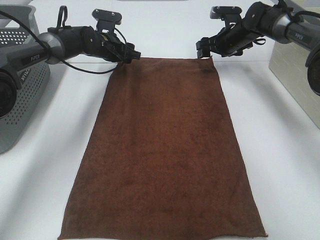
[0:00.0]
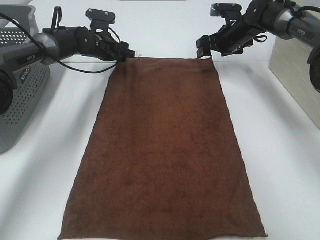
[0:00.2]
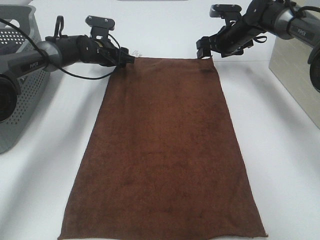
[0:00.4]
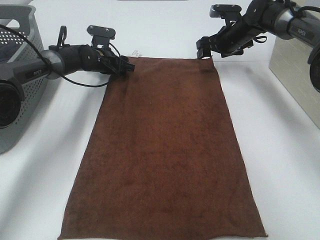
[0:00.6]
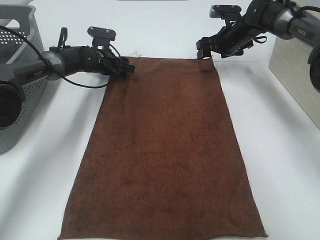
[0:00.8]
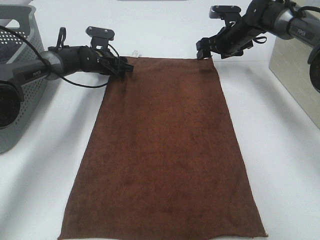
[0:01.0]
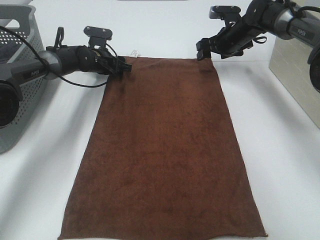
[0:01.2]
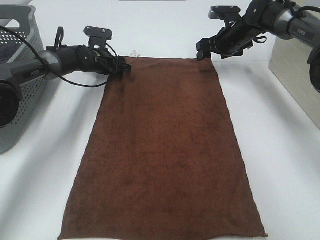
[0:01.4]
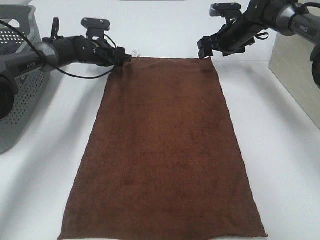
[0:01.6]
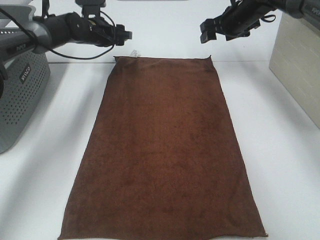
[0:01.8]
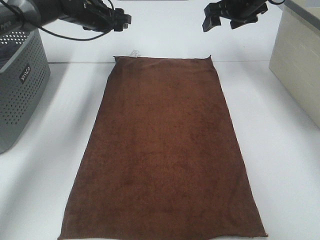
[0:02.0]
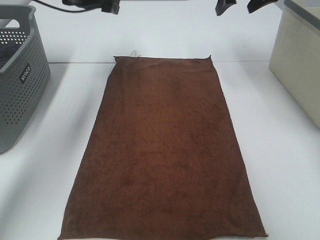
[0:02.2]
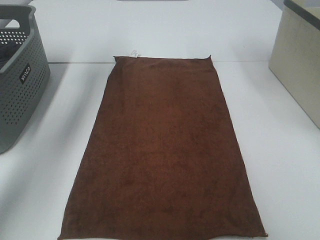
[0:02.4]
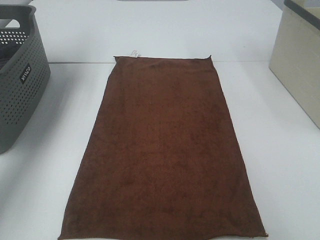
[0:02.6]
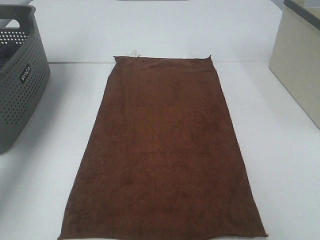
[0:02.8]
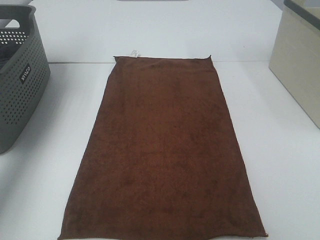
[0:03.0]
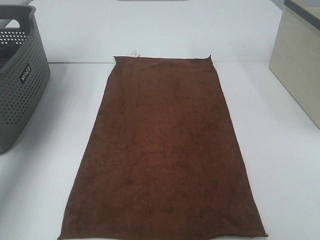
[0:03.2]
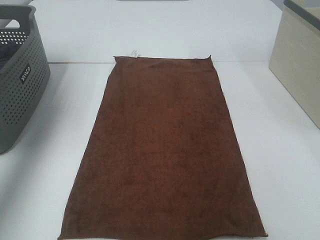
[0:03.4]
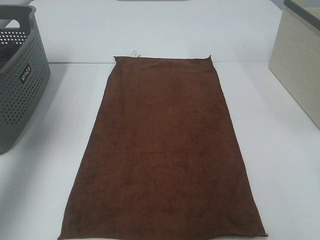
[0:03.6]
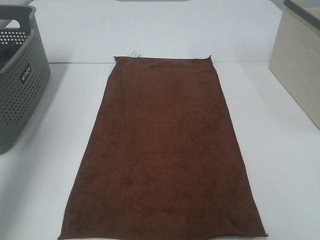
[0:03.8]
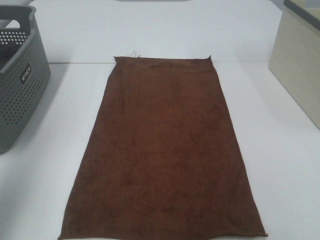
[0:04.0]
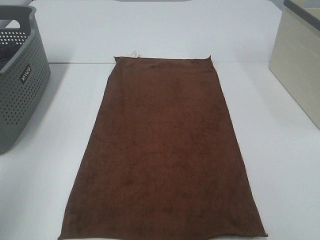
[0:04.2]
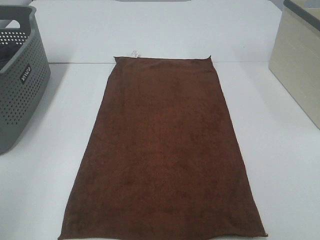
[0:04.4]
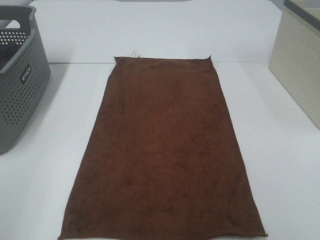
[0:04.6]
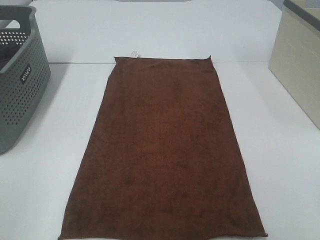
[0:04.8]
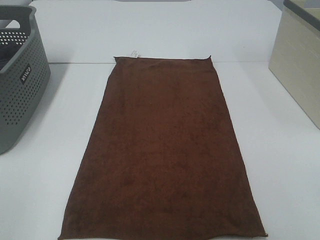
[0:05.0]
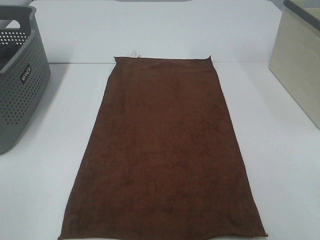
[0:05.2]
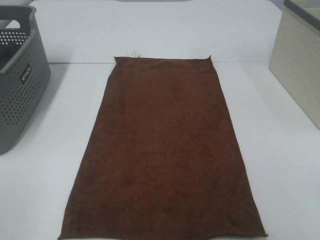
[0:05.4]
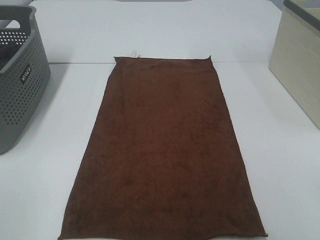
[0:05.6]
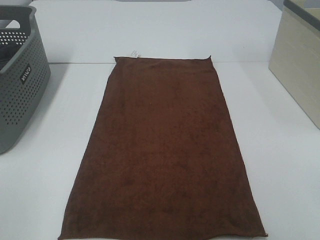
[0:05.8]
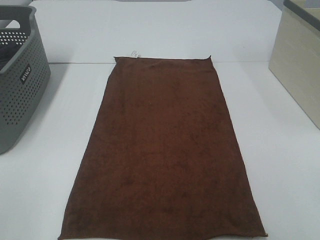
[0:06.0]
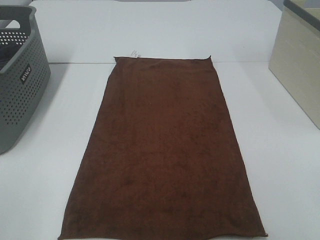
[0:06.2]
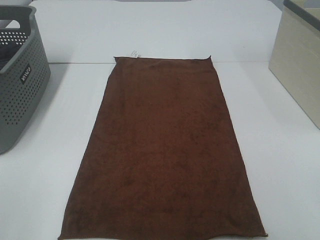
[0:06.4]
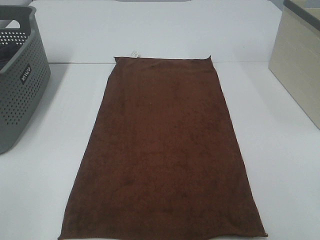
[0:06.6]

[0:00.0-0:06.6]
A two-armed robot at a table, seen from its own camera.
Task of the whole recording: Remove the towel and place it.
0:00.0 to 0:01.6: The grippers stay close to where they were, moving slightly.
0:01.6 to 0:03.2: The right gripper shifts approximately 35 cm upward and backward. The left gripper is displaced upward, backward and to the left by about 40 cm.
0:03.2 to 0:05.0: The left gripper travels backward by approximately 40 cm.
0:05.0 to 0:06.6: Both grippers stay about where they are.

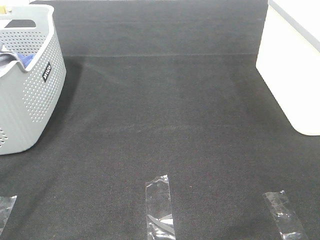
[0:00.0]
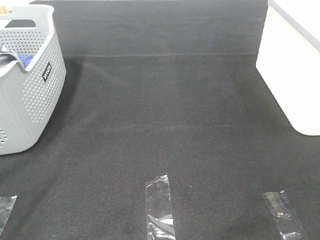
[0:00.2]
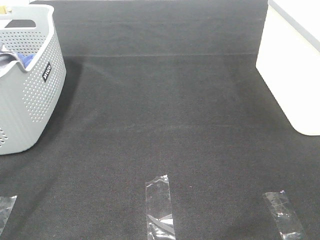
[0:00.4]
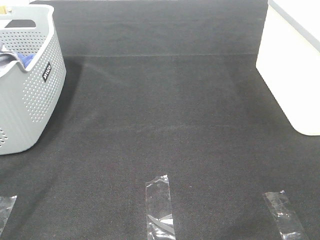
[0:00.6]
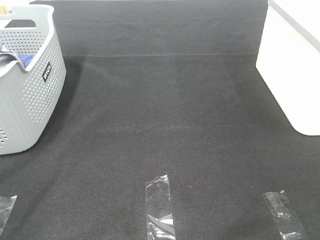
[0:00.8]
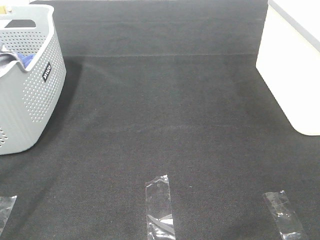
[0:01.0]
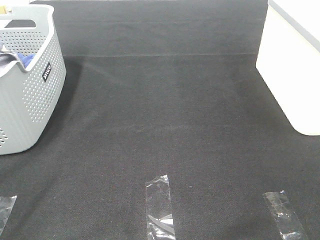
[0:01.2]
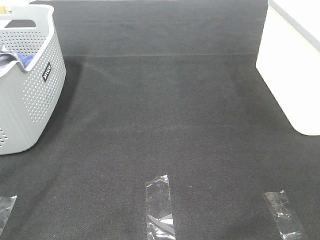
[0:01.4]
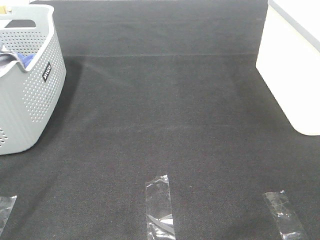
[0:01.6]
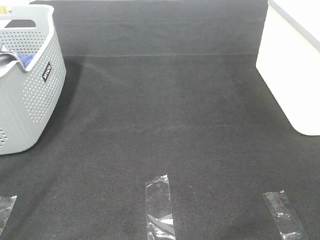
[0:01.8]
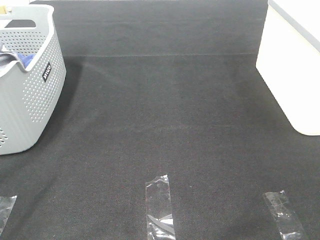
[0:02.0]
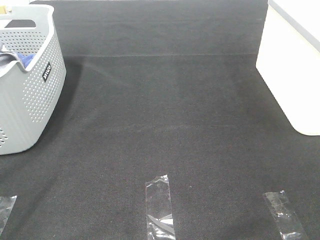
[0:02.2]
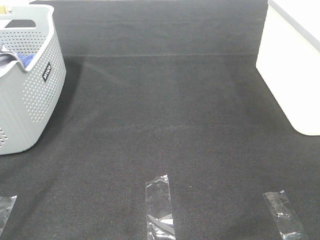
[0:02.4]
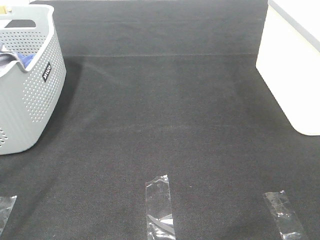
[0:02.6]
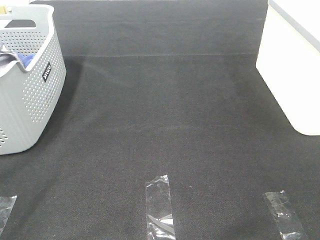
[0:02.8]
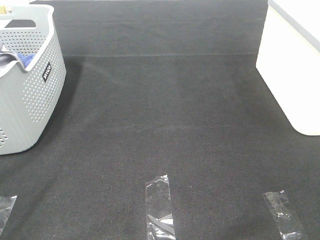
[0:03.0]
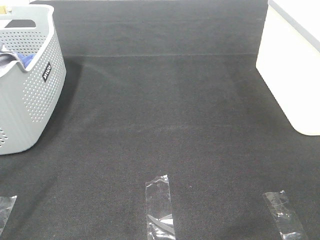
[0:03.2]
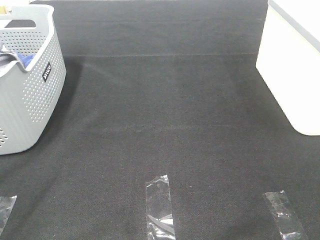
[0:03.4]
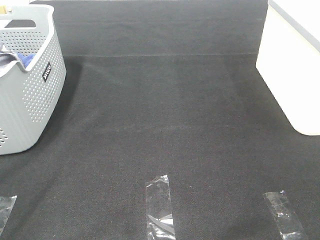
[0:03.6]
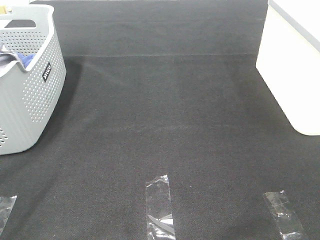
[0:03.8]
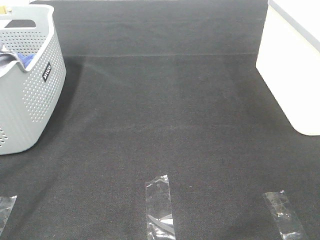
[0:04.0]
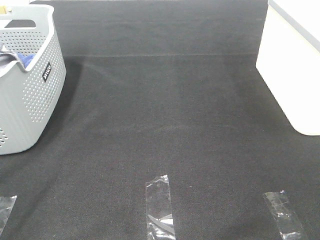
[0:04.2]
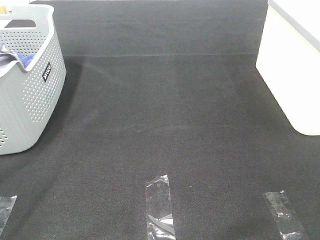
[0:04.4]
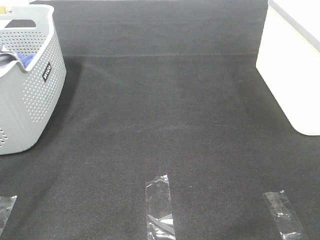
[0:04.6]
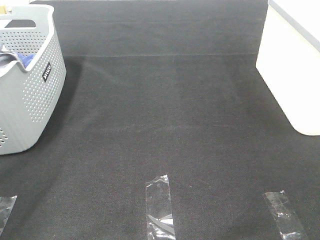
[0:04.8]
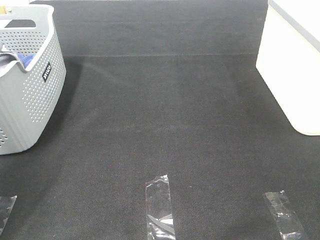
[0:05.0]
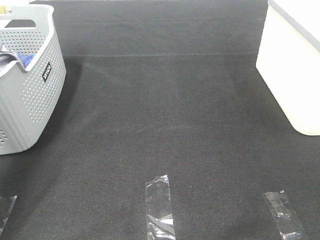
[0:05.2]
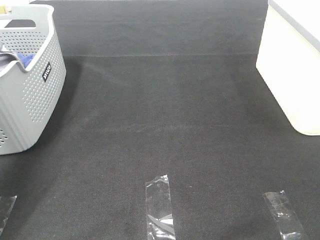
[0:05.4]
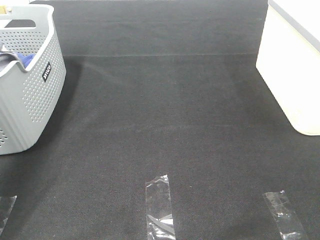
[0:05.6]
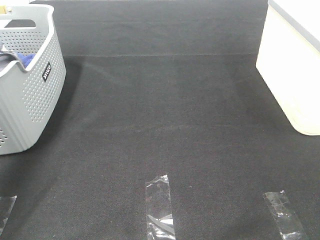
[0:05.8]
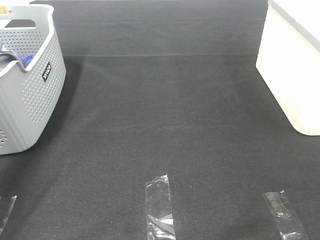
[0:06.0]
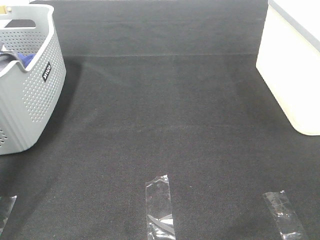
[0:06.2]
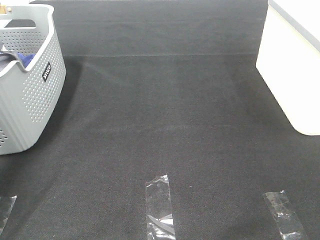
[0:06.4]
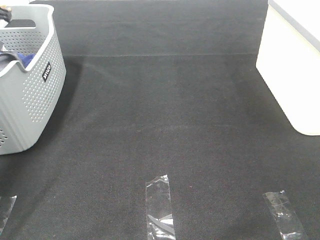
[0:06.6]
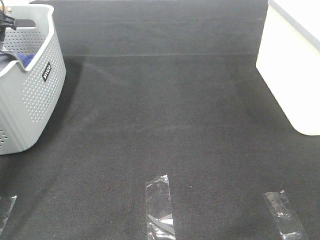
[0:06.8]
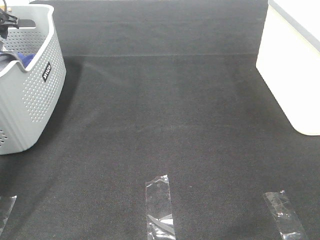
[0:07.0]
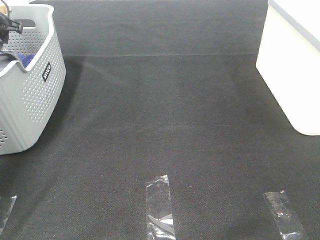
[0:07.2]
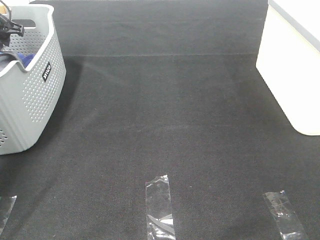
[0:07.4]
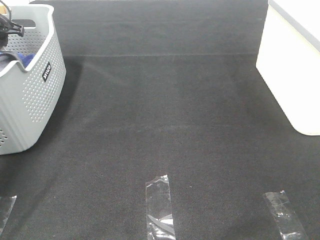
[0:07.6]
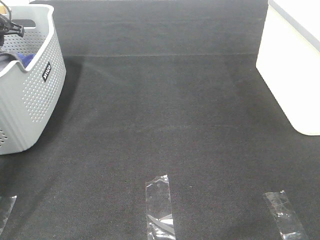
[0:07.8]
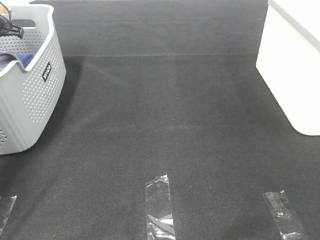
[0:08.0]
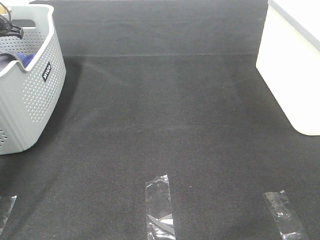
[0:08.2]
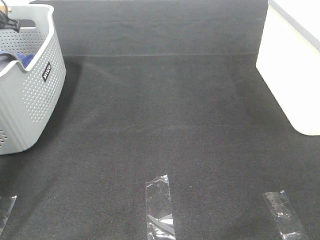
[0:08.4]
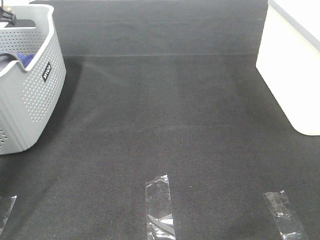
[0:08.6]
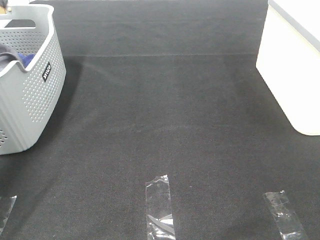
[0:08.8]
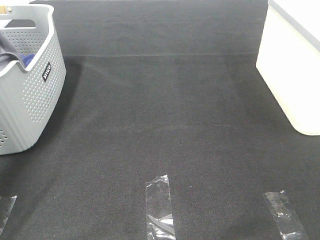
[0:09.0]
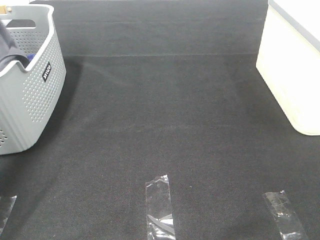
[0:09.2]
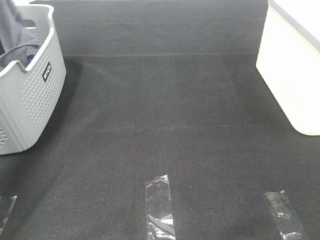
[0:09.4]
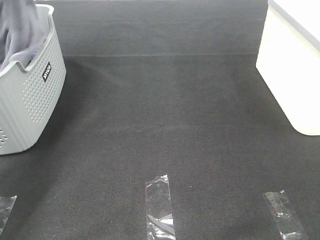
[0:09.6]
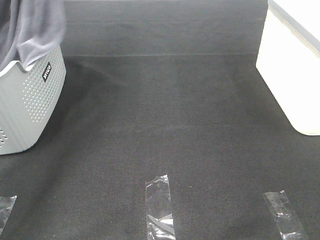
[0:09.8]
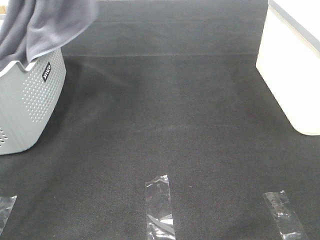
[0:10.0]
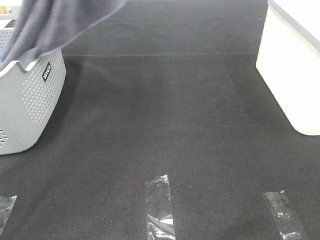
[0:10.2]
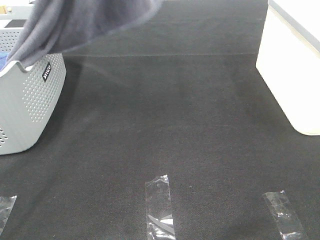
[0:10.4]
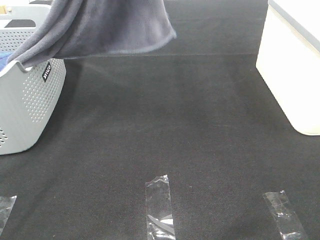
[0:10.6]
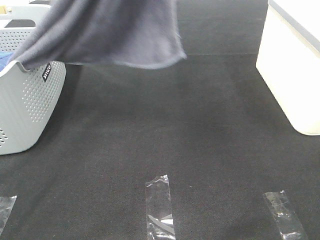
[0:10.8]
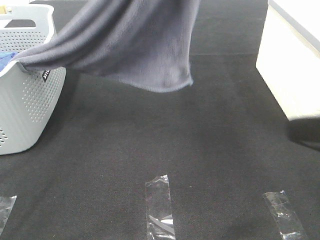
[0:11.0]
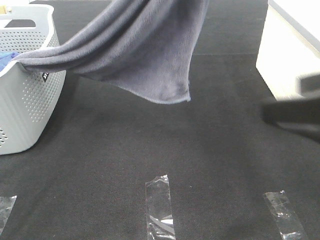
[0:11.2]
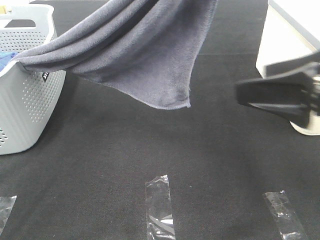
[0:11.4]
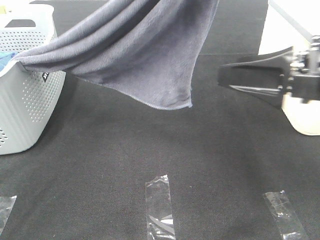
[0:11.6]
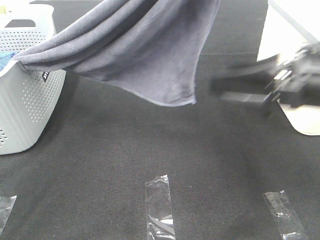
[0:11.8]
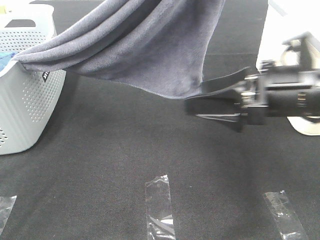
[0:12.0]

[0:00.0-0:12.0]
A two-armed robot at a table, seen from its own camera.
Task of the whole recording: Remove the towel and place it.
0:00.0 to 0:04.4: Both grippers stay about where they are.
0:04.4 to 0:06.0: The left gripper moves forward, some 40 cm.
0:06.0 to 0:07.6: The left gripper moves downward and forward, approximately 15 cm.
0:07.6 to 0:09.0: The left gripper moves upward, roughly 15 cm, and closes.
0:09.0 to 0:10.4: The left gripper goes approximately 35 cm to the right, upward and backward.
0:10.4 to 0:12.0: The right gripper goes roughly 25 cm forward and to the left. Meanwhile the left gripper goes approximately 15 cm to the right, backward and downward.

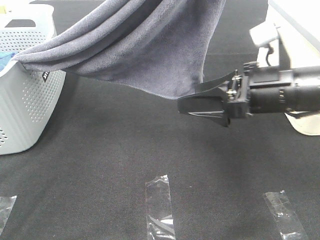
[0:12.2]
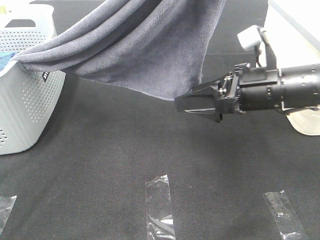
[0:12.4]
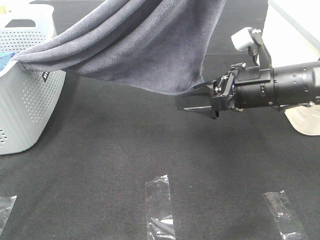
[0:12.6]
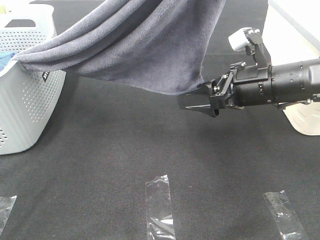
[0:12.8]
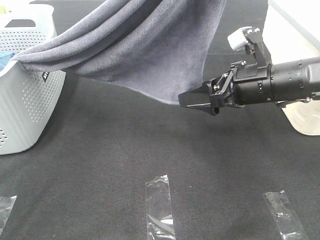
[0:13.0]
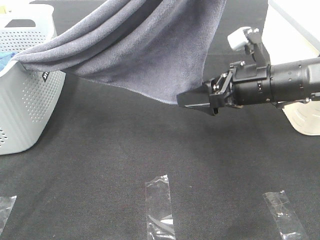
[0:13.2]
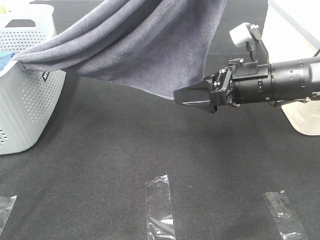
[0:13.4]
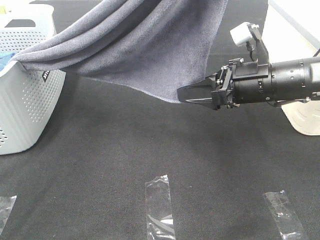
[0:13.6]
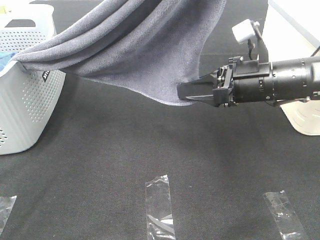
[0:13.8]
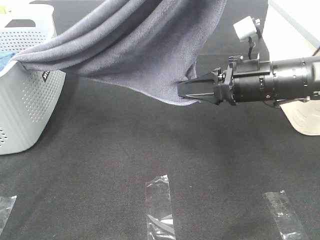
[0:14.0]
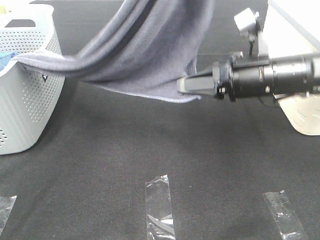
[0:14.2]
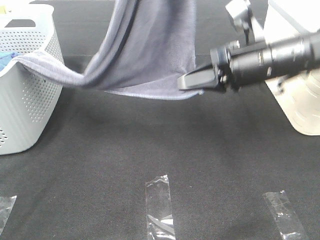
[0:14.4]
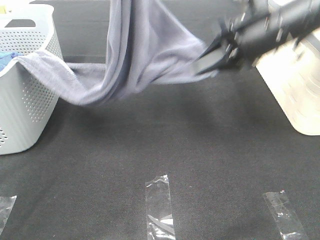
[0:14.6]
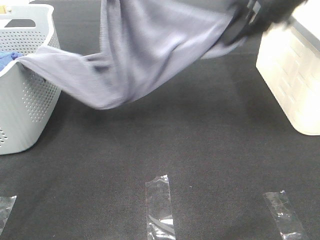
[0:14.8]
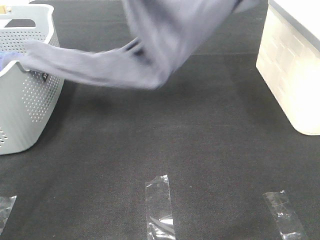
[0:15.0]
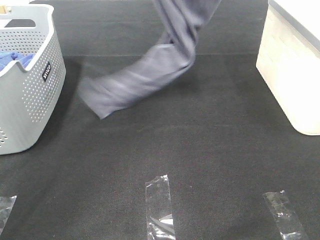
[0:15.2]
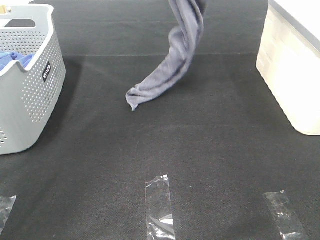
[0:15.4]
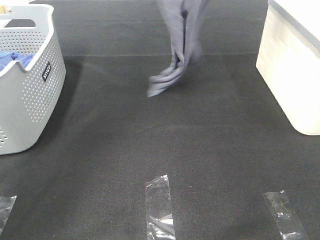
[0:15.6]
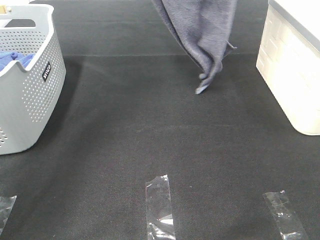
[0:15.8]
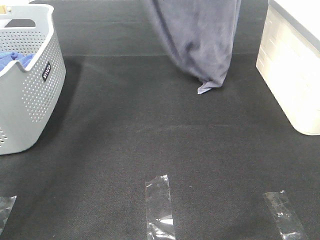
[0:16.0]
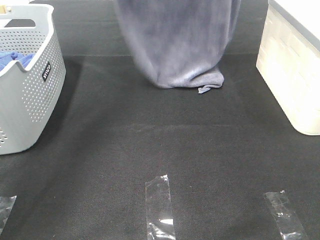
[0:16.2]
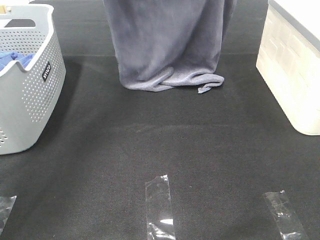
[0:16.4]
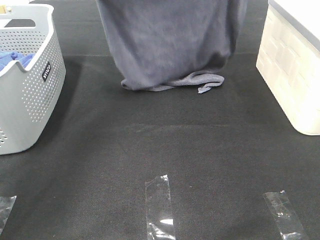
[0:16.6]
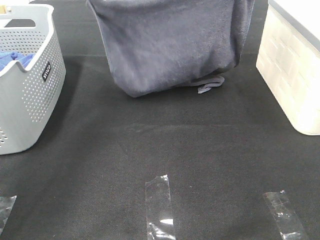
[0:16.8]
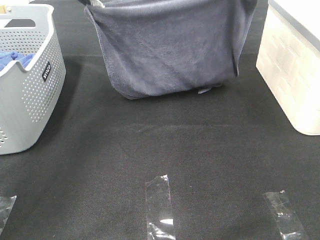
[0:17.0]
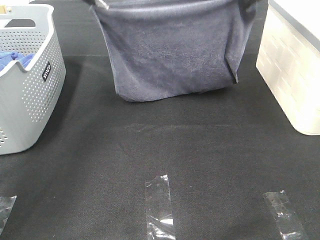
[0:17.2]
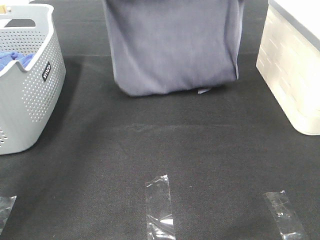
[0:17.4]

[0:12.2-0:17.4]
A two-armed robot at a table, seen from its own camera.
Task of the whole recording: Remove the towel and place it.
0:12.2 to 0:14.0: The right gripper closes up.
0:14.0 to 0:15.6: The left gripper shifts about 25 cm forward and to the left, while the right gripper goes roughly 35 cm upward and forward.
0:15.6 to 0:17.4: The left gripper goes approximately 15 cm downward and forward, while the right gripper moves downward, approximately 10 cm.
